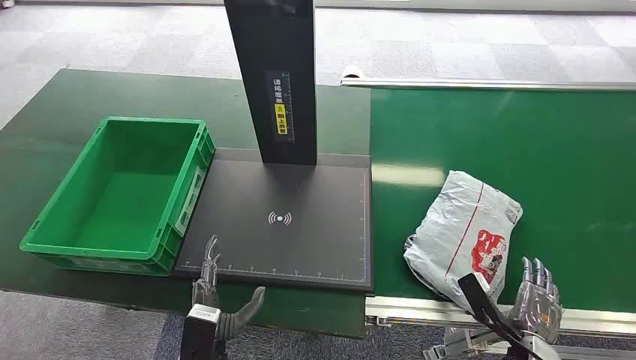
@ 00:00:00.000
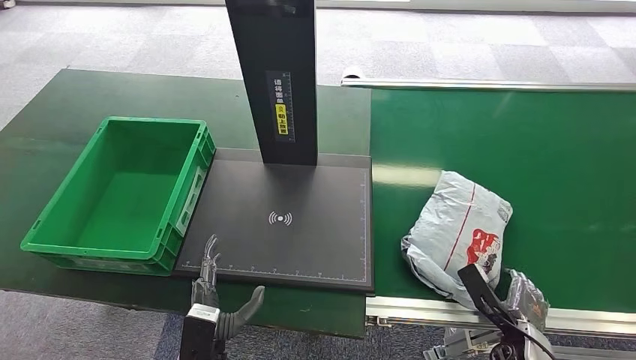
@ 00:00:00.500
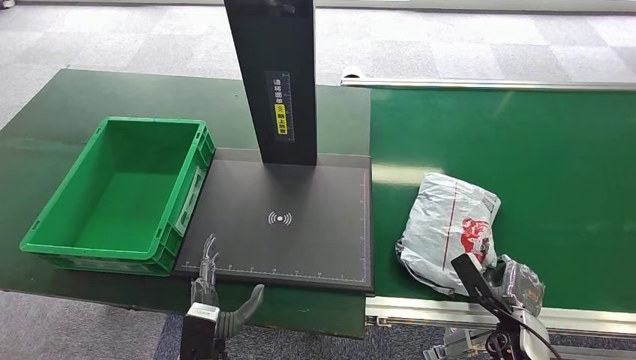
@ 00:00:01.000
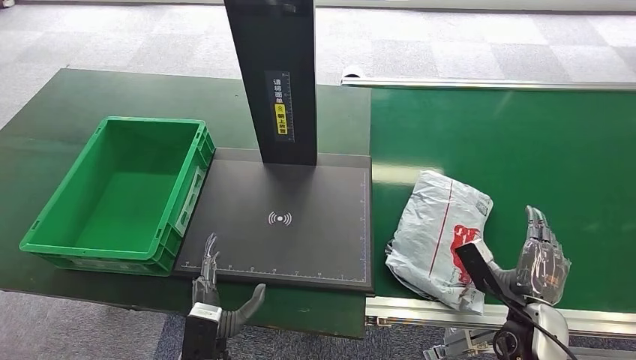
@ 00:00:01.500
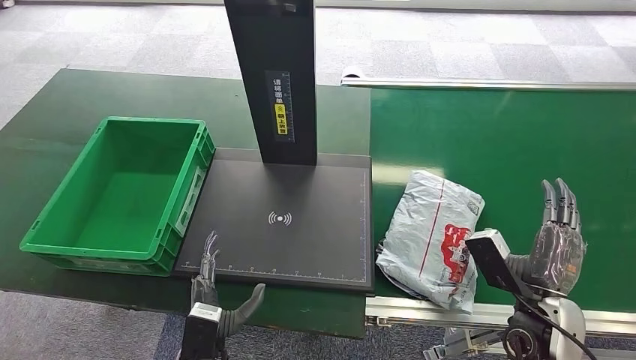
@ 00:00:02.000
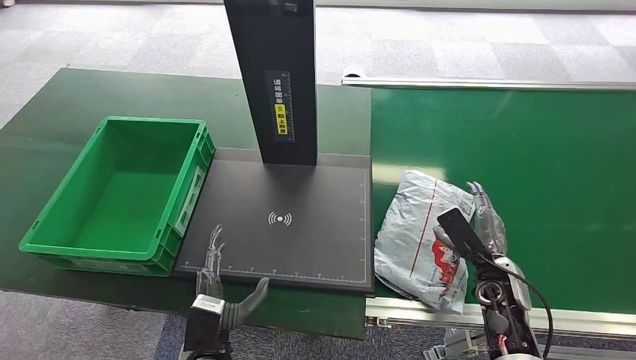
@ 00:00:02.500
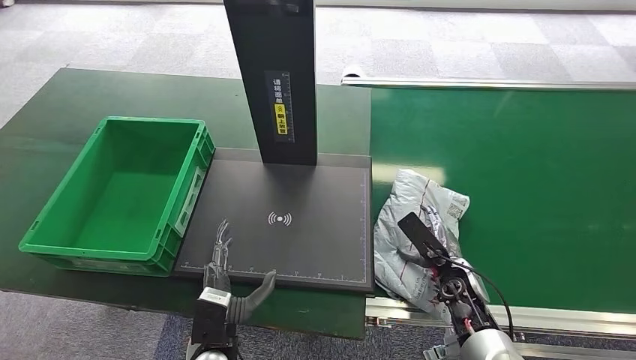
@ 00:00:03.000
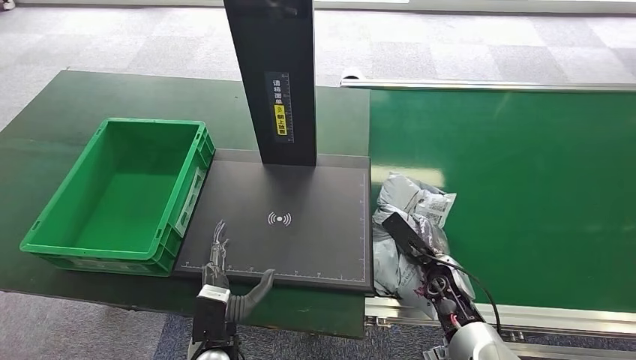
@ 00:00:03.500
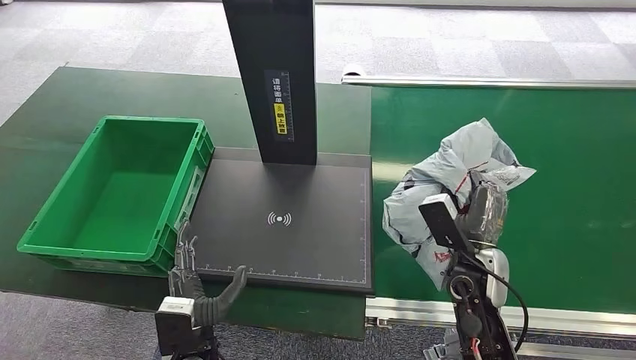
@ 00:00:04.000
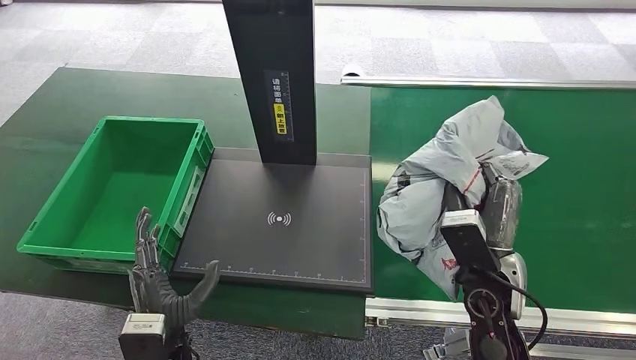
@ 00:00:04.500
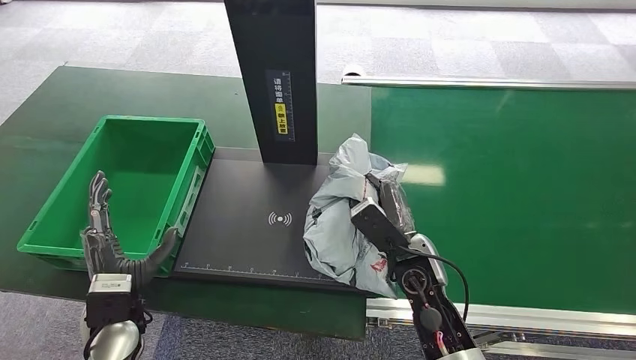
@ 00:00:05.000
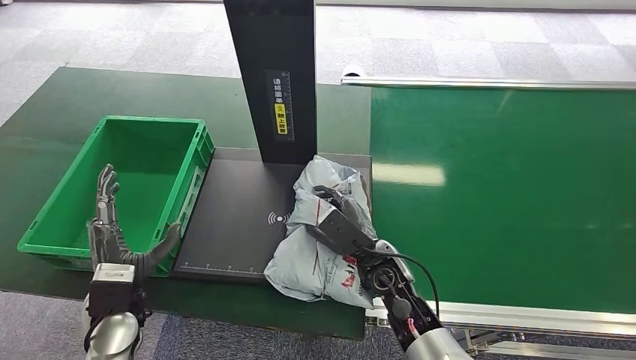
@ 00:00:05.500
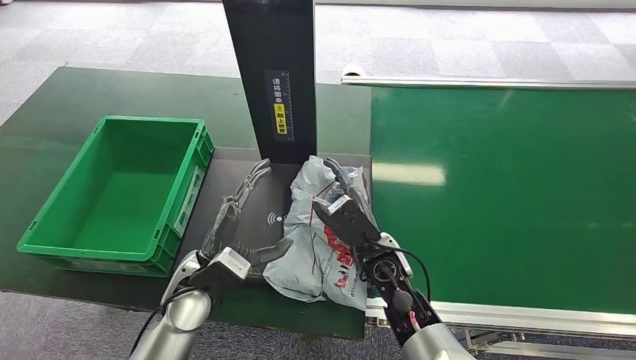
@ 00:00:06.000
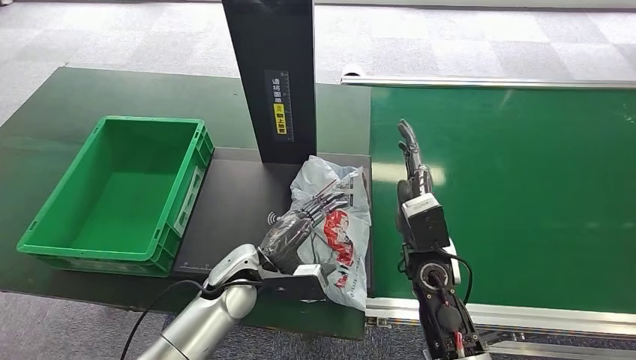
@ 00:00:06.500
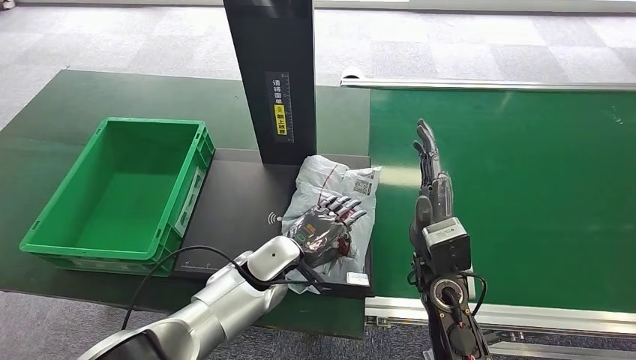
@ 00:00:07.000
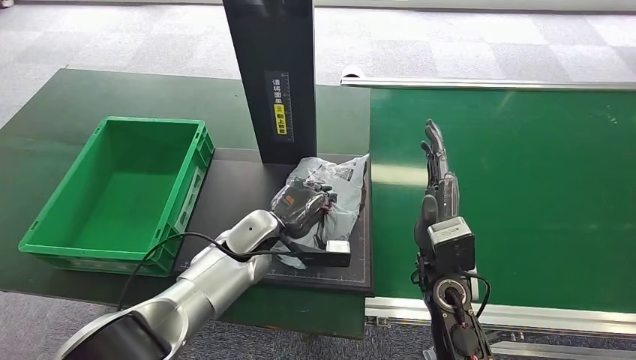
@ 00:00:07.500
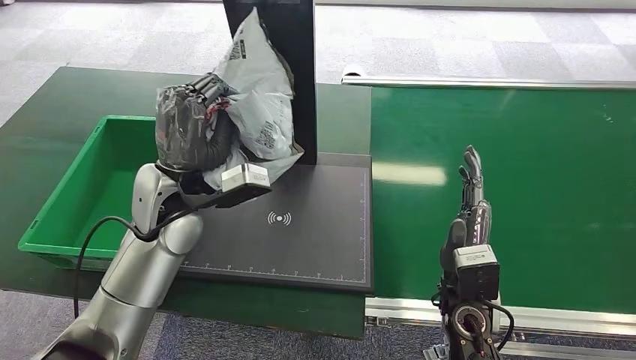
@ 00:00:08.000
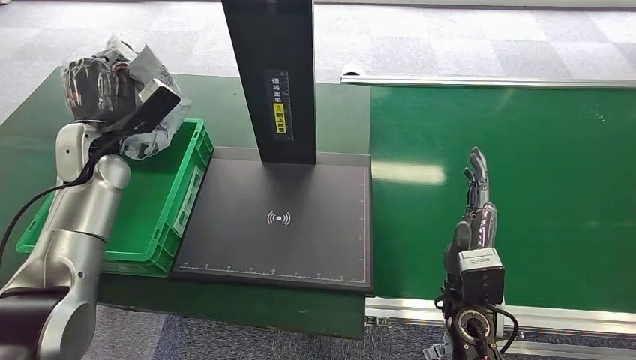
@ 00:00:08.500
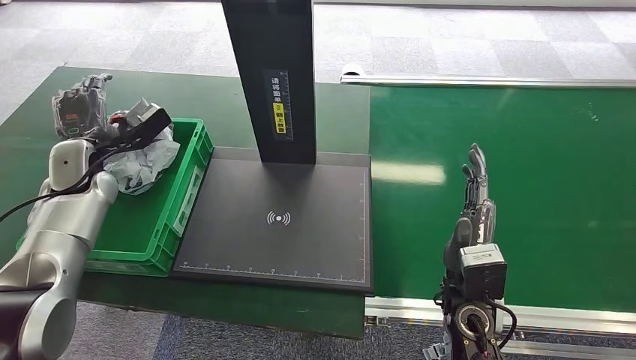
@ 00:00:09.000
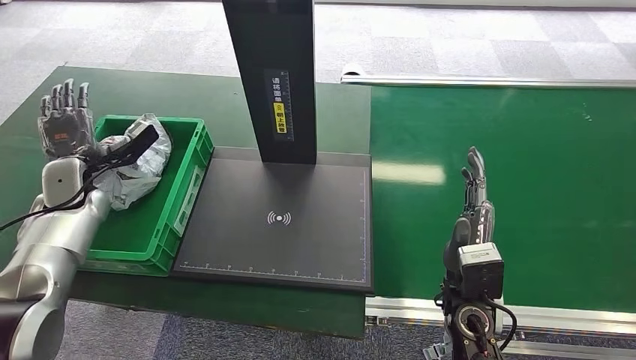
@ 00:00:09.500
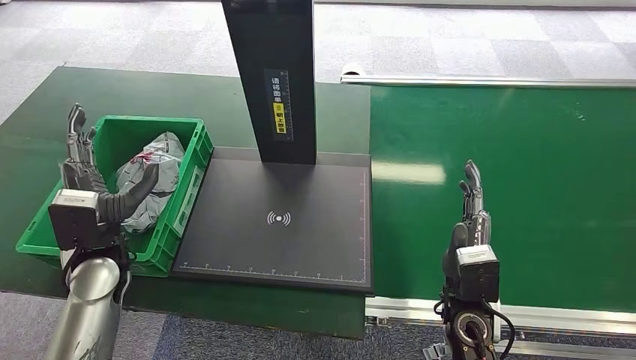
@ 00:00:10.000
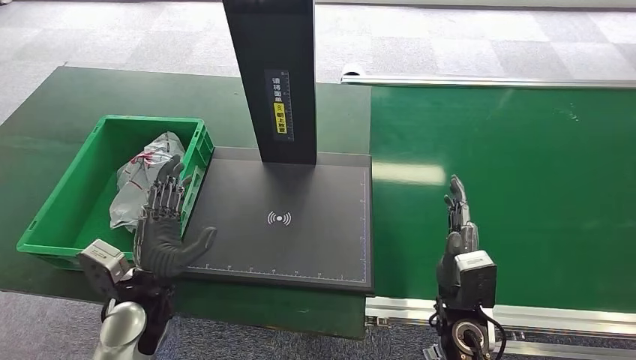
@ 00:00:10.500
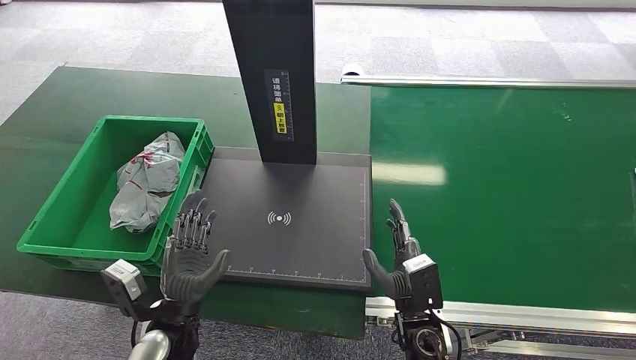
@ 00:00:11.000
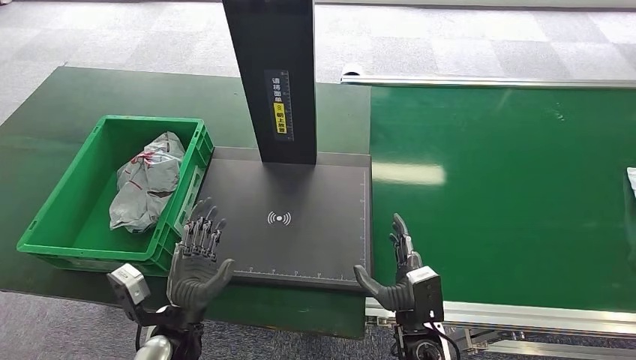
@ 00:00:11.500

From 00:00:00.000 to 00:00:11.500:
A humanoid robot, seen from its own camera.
Step, from 00:00:00.000 to 00:00:04.000: Pick up the package from the conveyor belt.
Step, from 00:00:04.500 to 00:00:07.000: Place the package onto the inbound machine.
Step, from 00:00:07.500 to 00:00:08.500: Pick up the package from the inbound machine.
Step, from 00:00:09.000 to 00:00:11.500: Place the package into the parcel locker.
From 00:00:04.000 to 00:00:06.000: The left hand goes some 15 cm forward and upward, and goes to the left and returns, some 10 cm each way. Meanwhile the right hand is displaced to the left by some 15 cm.
From 00:00:06.000 to 00:00:07.500: The right hand heads upward and to the right, covering approximately 10 cm; the left hand moves forward, about 10 cm.
From 00:00:09.500 to 00:00:11.500: The right hand goes some 10 cm downward and to the left. Meanwhile the left hand is displaced to the right, backward and downward by about 35 cm.
